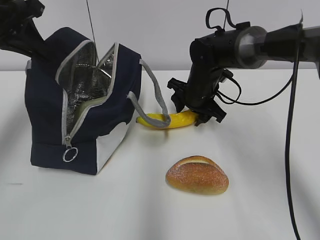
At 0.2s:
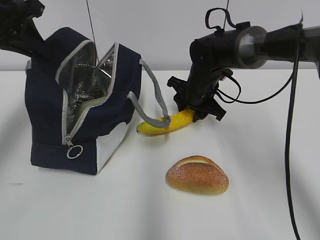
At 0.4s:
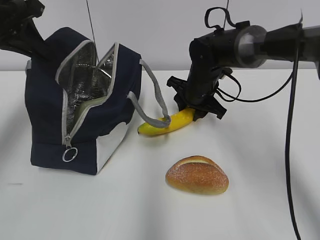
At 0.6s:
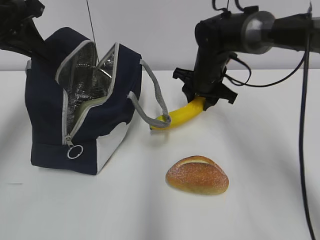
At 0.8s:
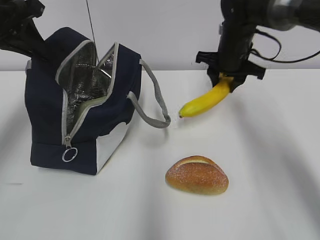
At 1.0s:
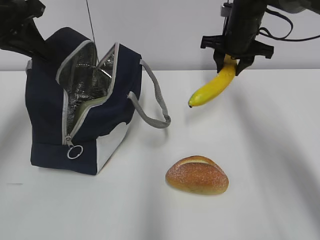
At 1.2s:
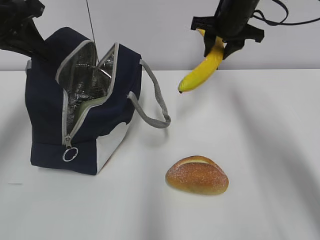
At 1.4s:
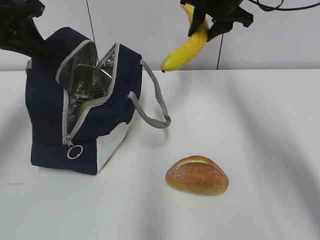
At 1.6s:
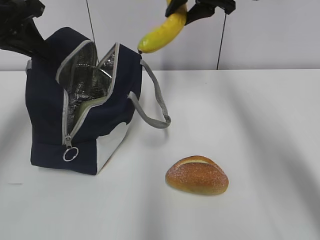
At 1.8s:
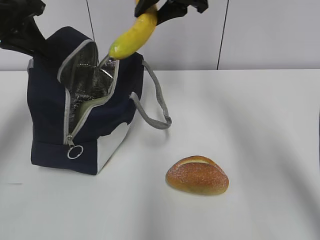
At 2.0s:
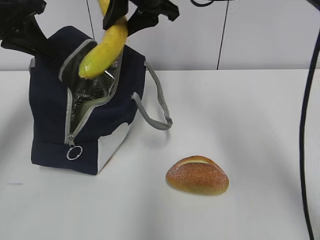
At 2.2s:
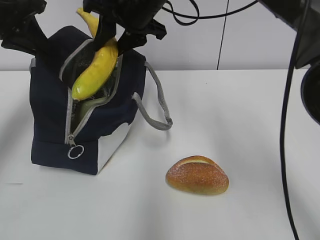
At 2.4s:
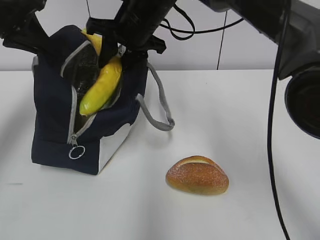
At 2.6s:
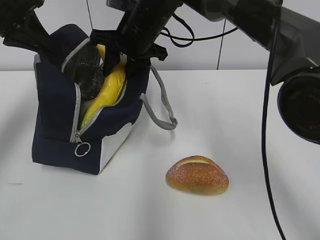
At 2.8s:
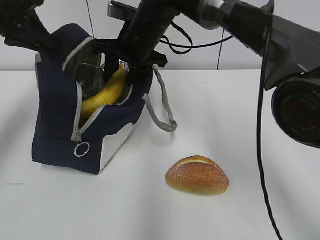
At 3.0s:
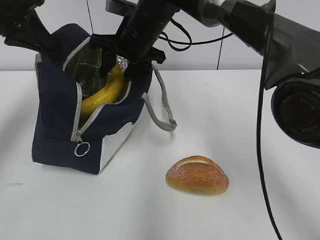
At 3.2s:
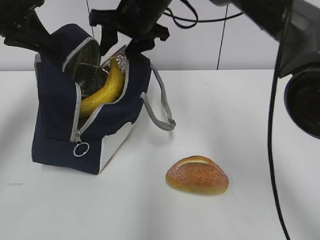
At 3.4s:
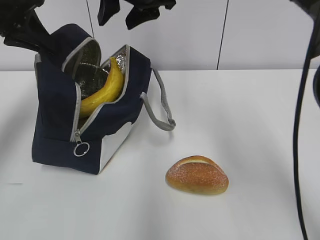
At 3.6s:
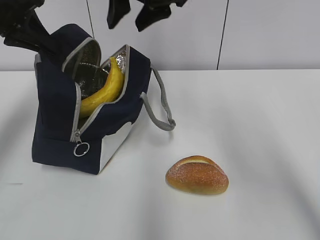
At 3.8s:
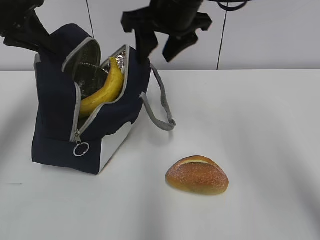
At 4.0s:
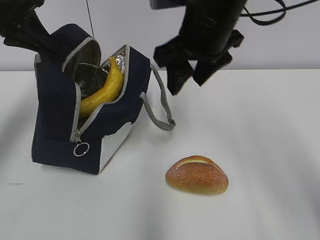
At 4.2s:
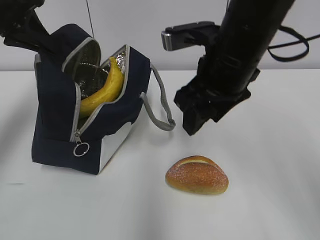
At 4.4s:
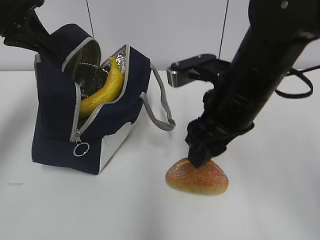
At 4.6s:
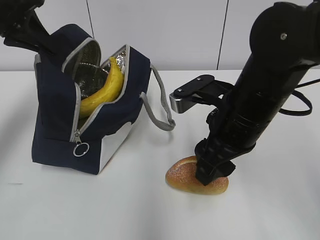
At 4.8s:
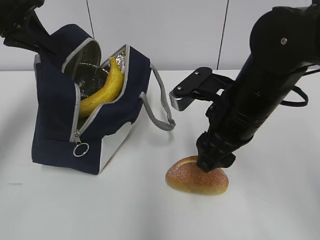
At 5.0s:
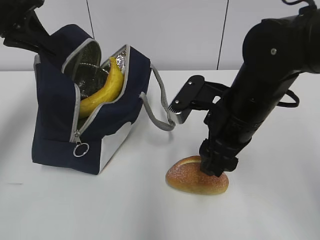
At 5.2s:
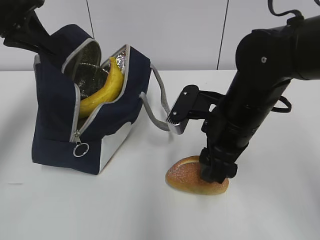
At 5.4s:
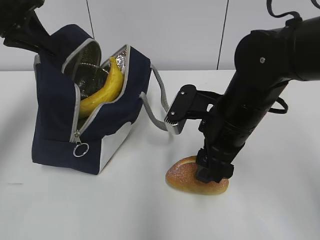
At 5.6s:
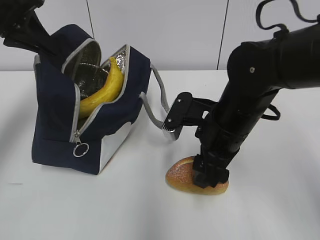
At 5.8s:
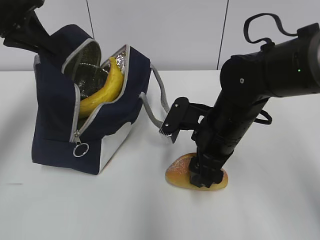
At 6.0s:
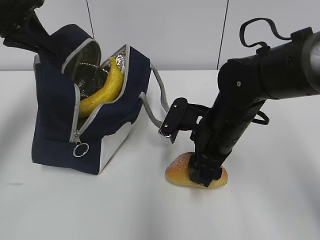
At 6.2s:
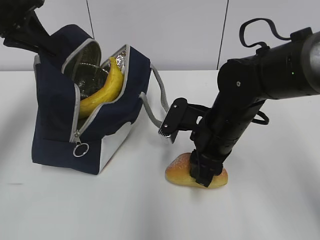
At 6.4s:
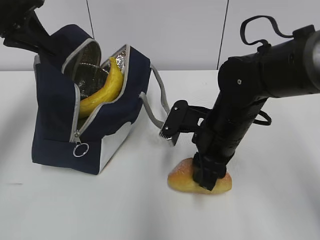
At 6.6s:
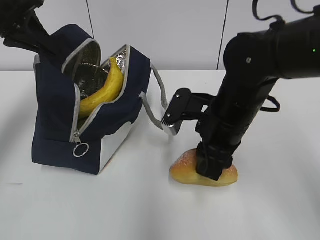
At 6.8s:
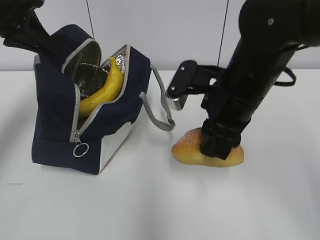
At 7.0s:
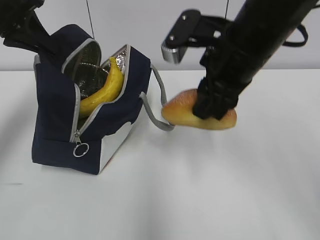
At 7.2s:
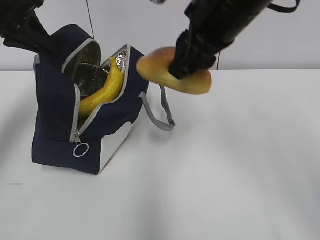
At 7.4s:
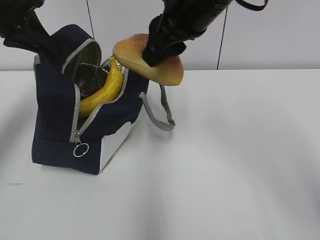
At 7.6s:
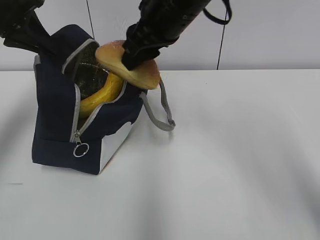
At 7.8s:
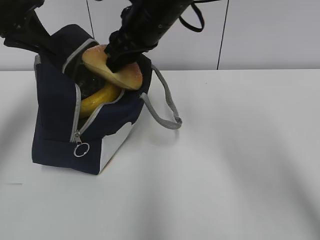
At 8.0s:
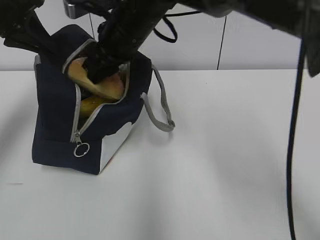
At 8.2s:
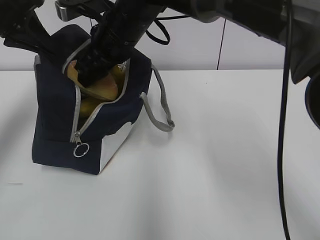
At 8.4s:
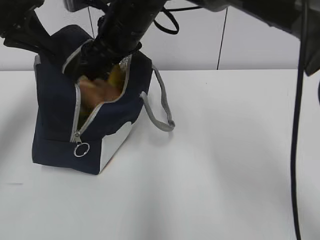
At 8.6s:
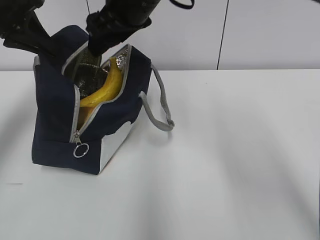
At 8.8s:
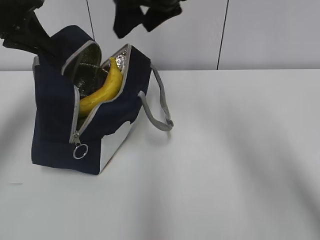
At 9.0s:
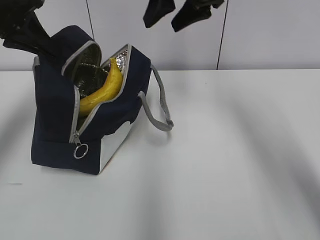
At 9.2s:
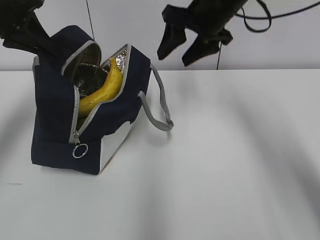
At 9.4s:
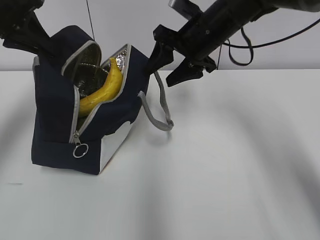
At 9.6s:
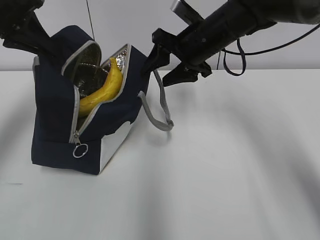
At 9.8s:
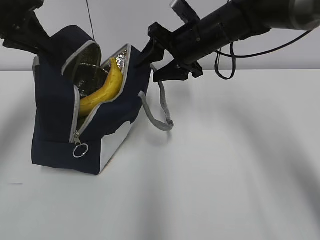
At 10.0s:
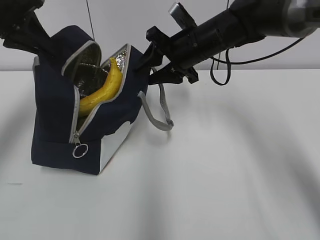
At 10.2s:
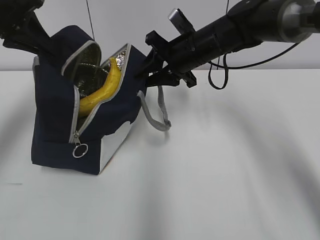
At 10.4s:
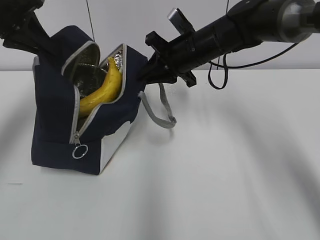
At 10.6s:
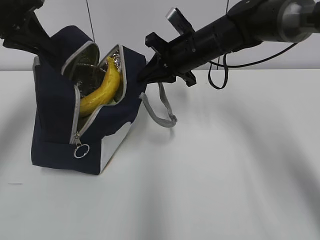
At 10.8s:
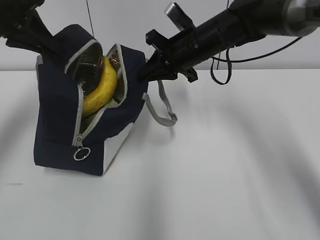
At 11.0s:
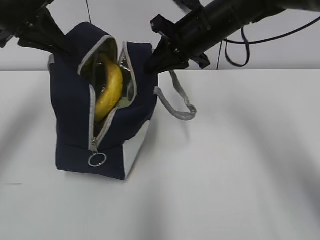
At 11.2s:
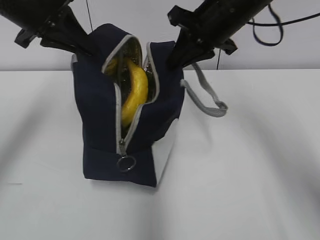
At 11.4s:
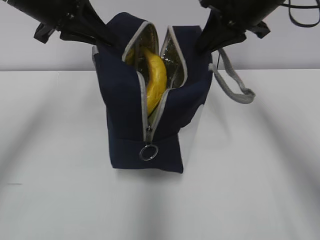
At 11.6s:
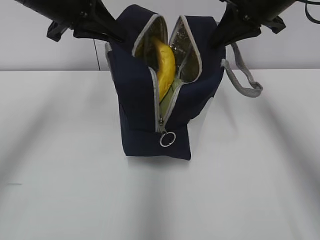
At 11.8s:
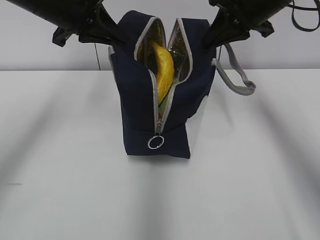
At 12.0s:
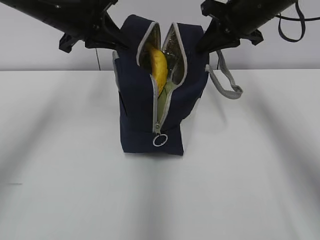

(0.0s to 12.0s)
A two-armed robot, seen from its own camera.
0.0s - 1.6s: The right gripper moves upward, approximately 20 cm.
1.6s - 3.0s: The right gripper goes roughly 15 cm to the left and downward.
3.0s - 4.4s: The right gripper moves backward and to the right, some 20 cm.
4.4s - 6.0s: The right gripper travels downward by some 10 cm.
6.0s - 7.6s: The right gripper travels upward by approximately 15 cm.
7.6s - 9.0s: The right gripper heads to the right and forward, covering some 10 cm, and opens up.
9.0s - 10.4s: The right gripper travels downward by some 15 cm, and closes.
10.4s - 12.0s: The left gripper heads to the right, covering approximately 10 cm. The right gripper heads to the right and upward, covering about 10 cm.

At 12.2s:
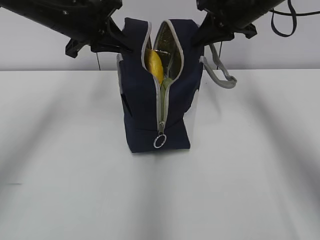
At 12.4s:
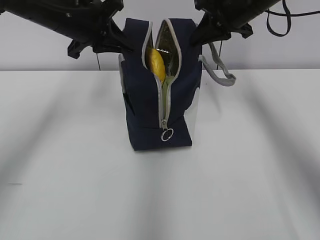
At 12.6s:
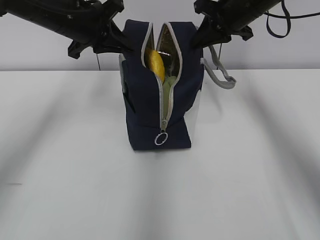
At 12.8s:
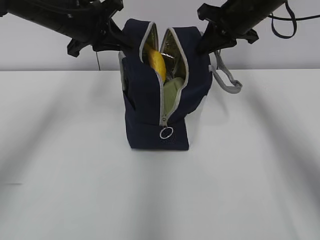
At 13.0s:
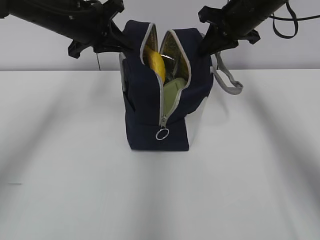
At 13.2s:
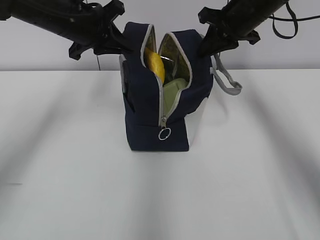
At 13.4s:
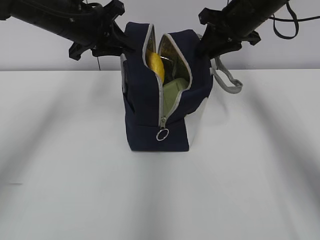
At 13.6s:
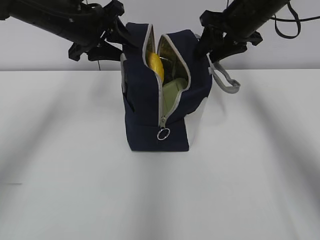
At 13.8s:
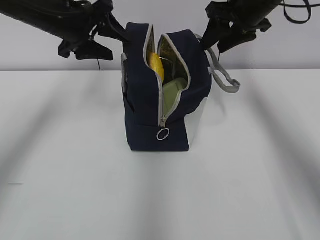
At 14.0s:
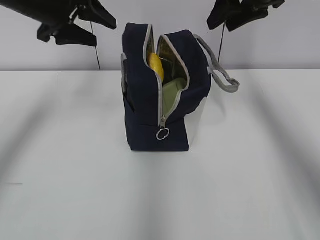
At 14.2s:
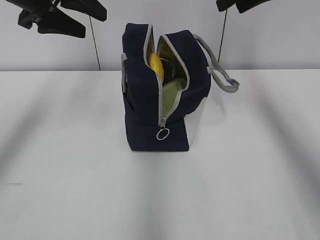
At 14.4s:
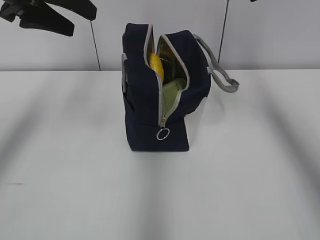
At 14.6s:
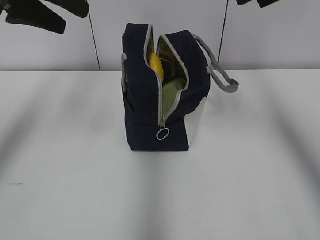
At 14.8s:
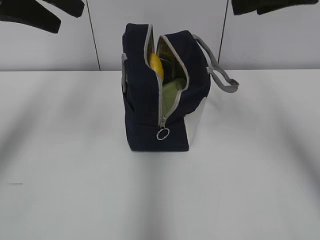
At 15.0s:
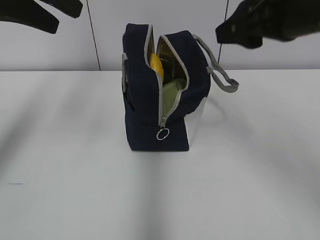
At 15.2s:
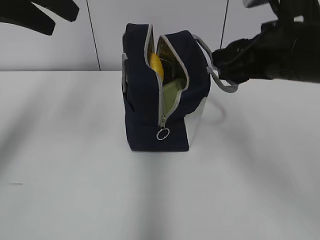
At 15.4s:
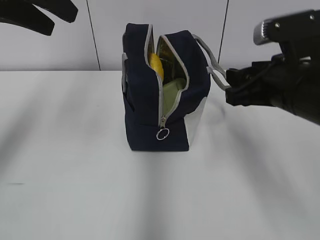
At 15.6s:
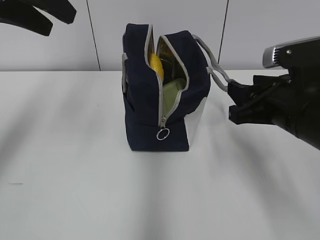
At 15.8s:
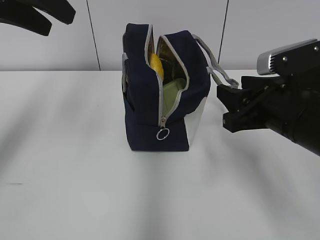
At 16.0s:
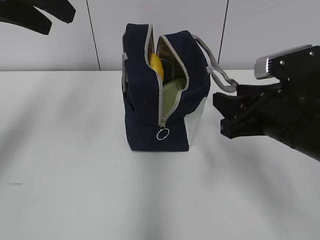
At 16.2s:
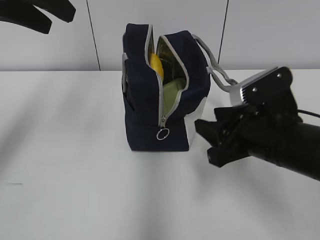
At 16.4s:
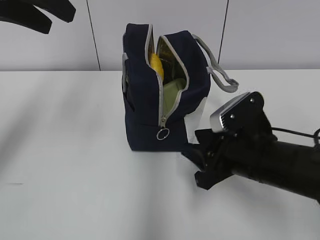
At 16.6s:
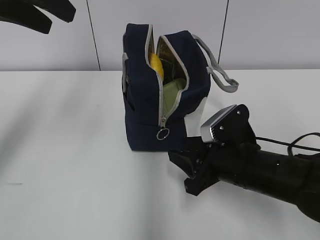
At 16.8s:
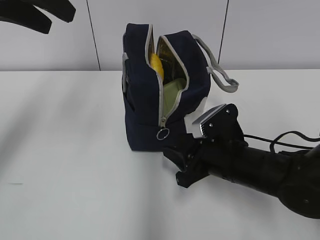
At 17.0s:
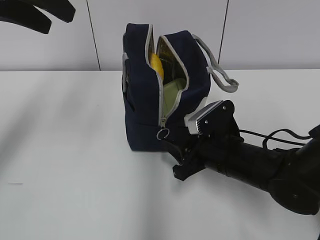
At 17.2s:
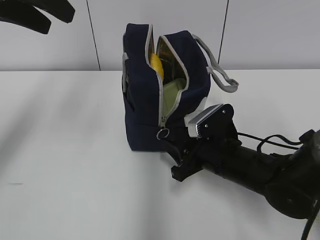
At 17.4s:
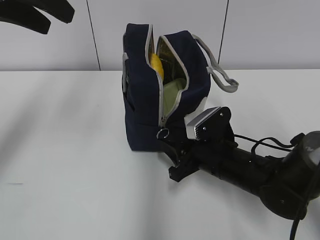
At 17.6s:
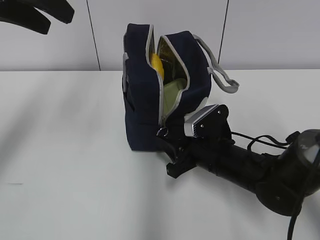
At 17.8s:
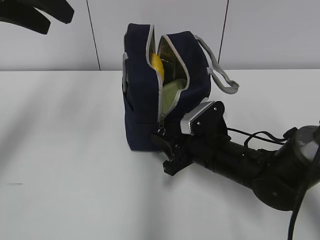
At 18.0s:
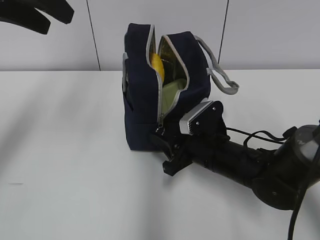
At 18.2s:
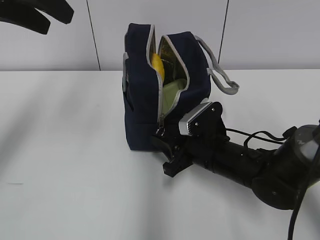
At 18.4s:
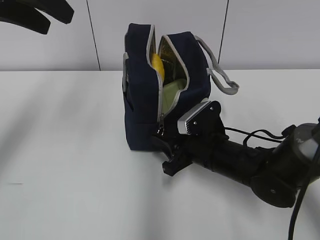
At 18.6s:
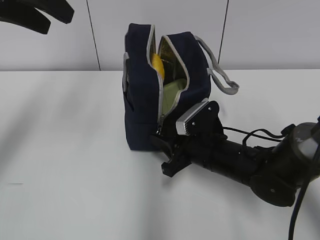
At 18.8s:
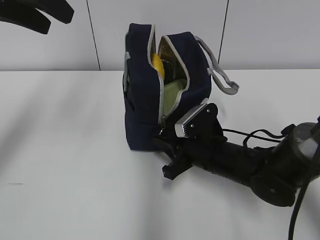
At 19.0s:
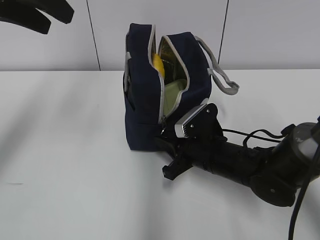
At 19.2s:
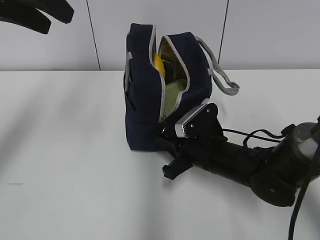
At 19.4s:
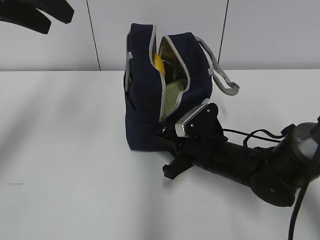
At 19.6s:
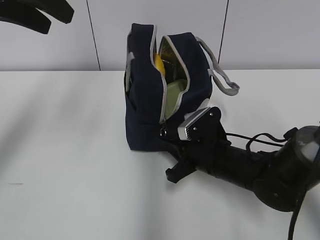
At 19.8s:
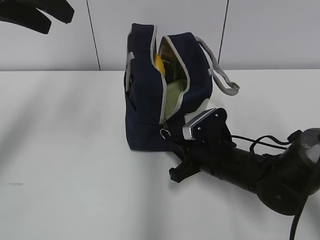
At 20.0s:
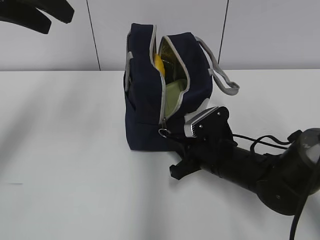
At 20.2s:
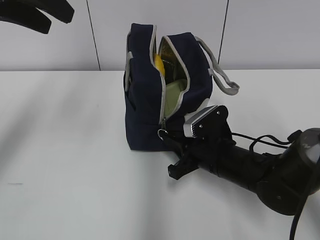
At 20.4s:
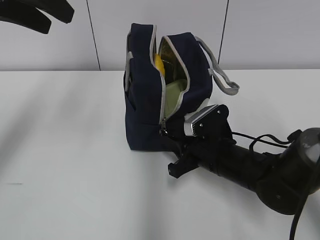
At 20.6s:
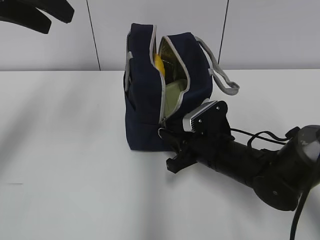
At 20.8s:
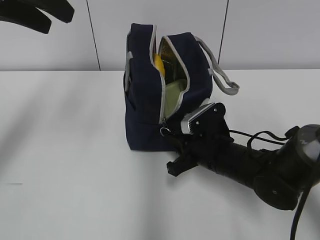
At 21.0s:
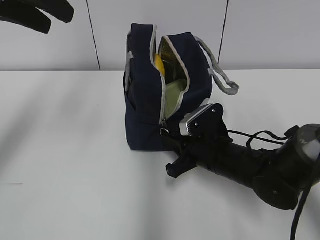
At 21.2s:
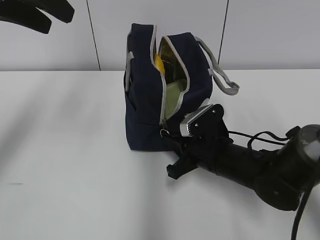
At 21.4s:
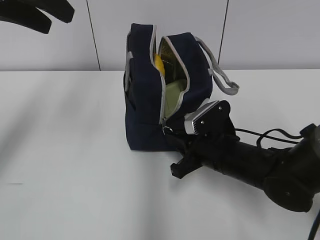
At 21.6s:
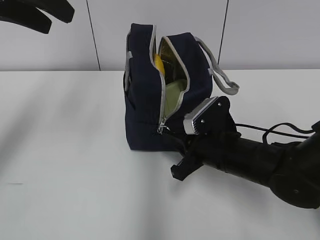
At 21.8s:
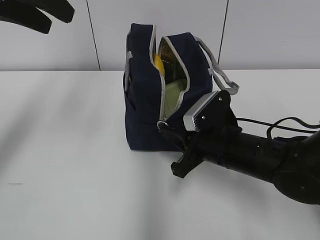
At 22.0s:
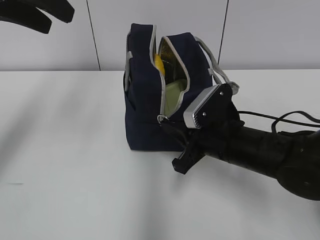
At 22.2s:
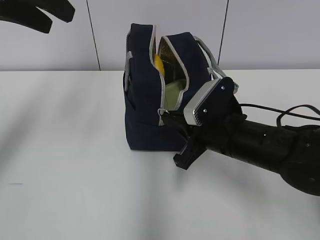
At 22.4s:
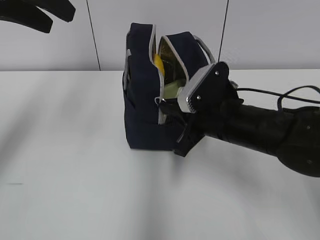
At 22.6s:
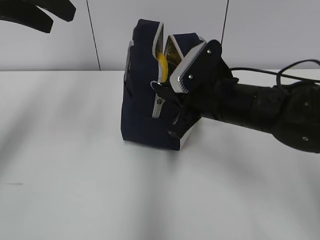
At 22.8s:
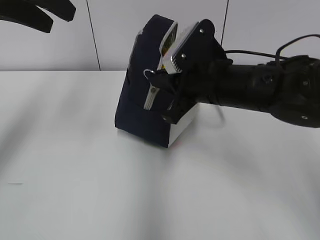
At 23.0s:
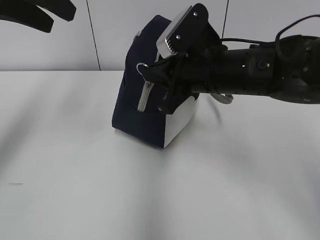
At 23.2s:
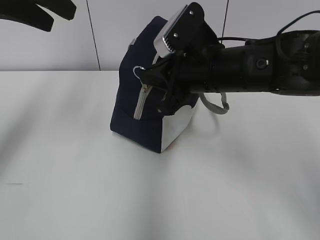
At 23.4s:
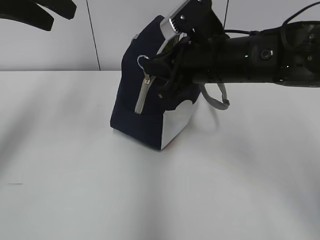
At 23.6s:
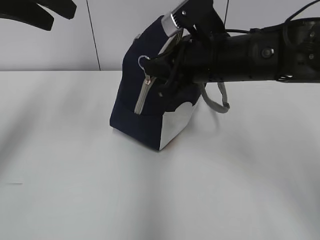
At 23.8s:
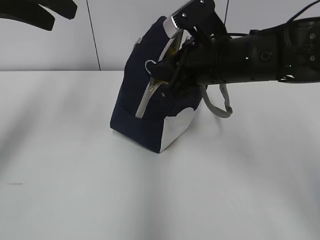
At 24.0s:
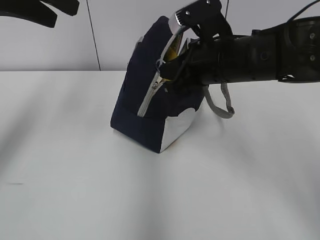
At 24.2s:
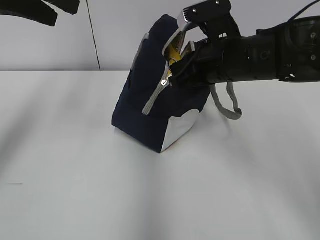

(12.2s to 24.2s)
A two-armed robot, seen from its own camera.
12.2s - 13.8s: The left gripper opens. The right gripper opens its fingers.
13.8s - 15.2s: The left gripper heads upward and backward, covering about 15 cm. The right gripper heads backward, covering about 15 cm.
15.2s - 16.6s: The right gripper heads downward, covering approximately 15 cm.
16.6s - 18.2s: The right gripper shifts roughly 5 cm forward.
18.2s - 19.8s: The right gripper closes.
19.8s - 21.2s: Neither gripper changes place.
21.2s - 22.6s: The right gripper moves upward, roughly 10 cm.
22.6s - 24.2s: The right gripper ends up approximately 5 cm from where it was.
